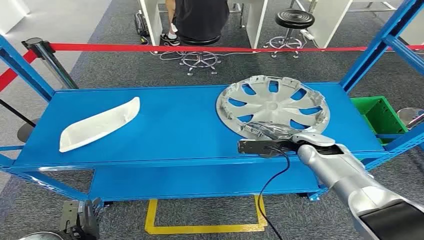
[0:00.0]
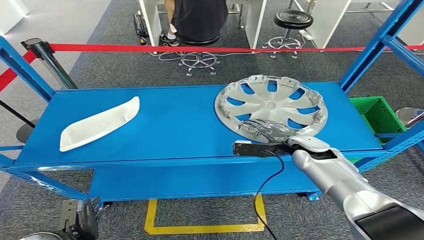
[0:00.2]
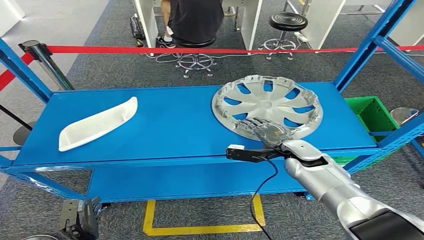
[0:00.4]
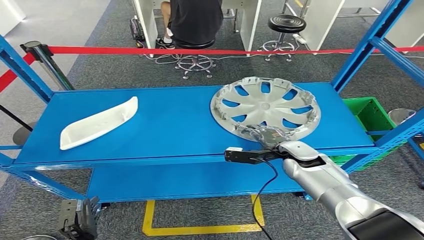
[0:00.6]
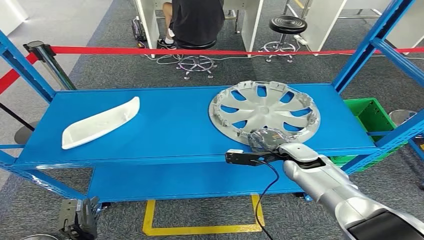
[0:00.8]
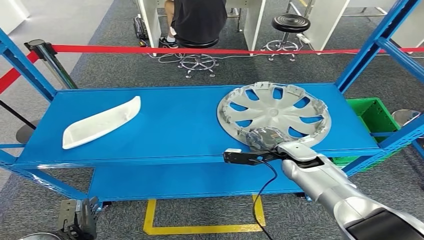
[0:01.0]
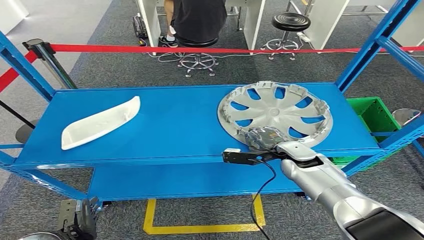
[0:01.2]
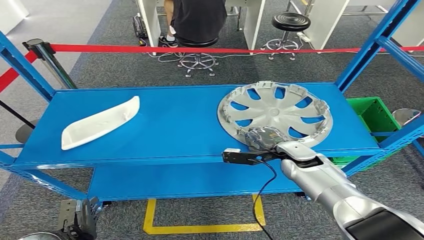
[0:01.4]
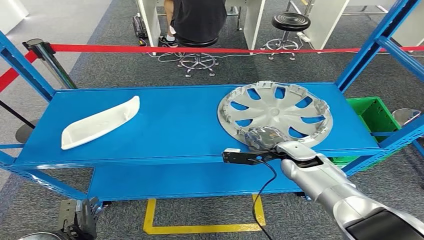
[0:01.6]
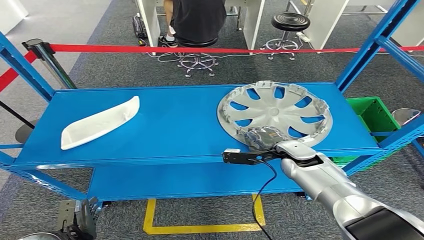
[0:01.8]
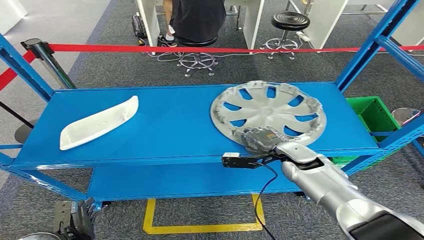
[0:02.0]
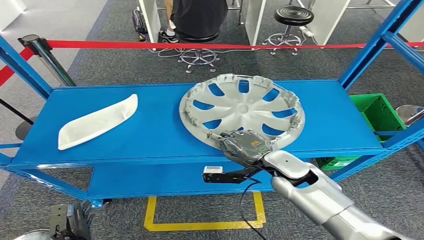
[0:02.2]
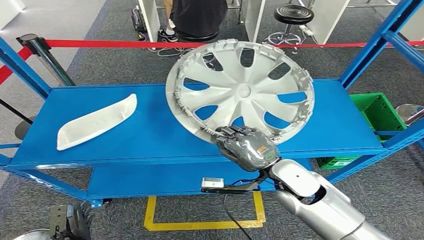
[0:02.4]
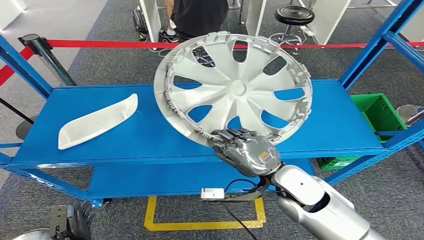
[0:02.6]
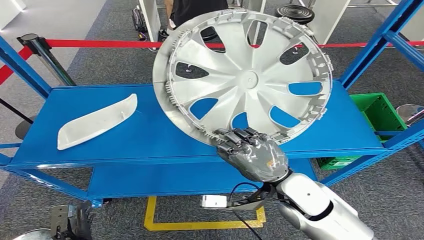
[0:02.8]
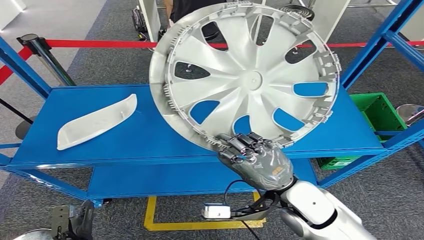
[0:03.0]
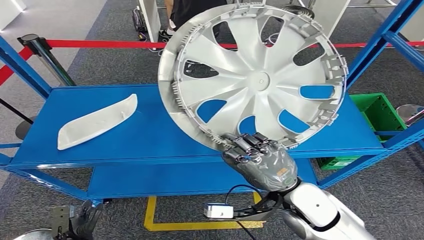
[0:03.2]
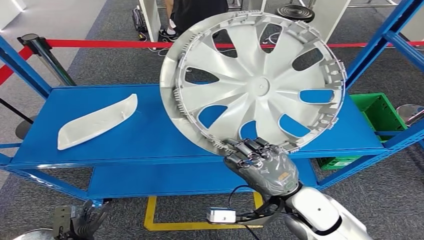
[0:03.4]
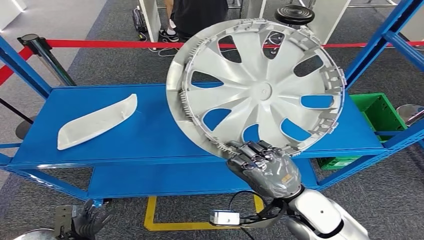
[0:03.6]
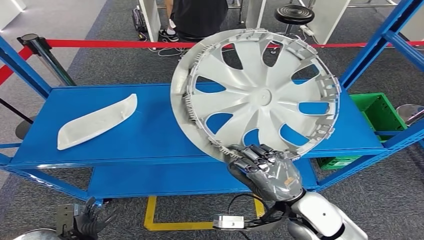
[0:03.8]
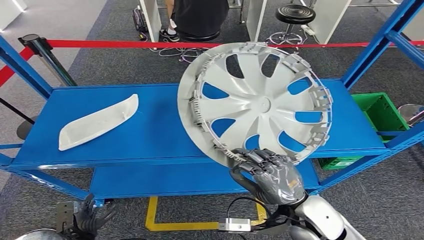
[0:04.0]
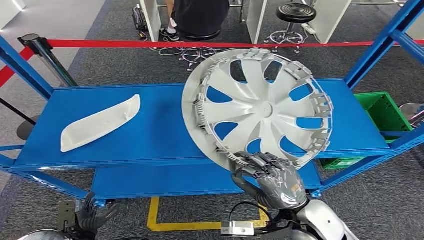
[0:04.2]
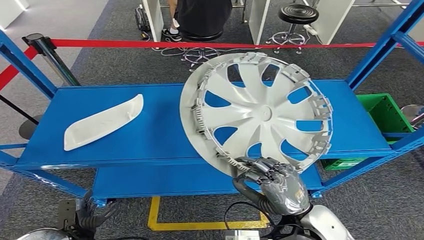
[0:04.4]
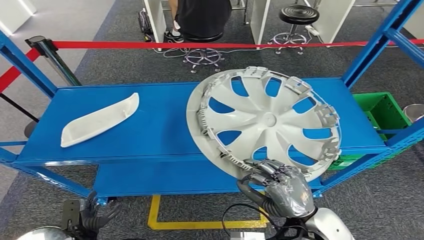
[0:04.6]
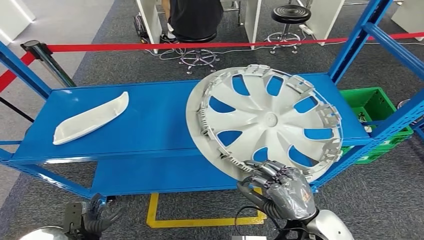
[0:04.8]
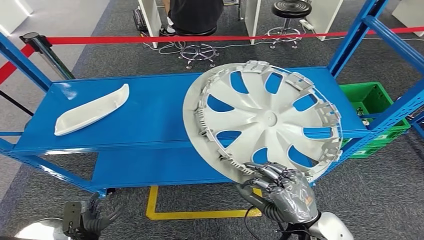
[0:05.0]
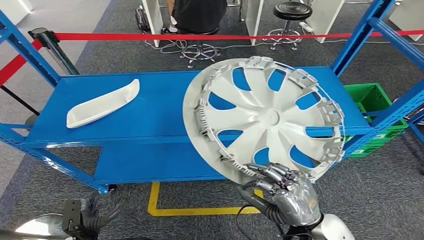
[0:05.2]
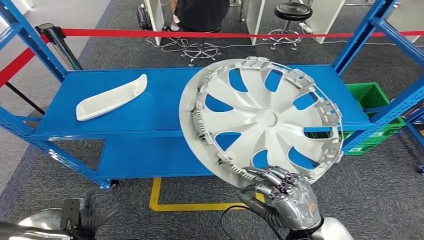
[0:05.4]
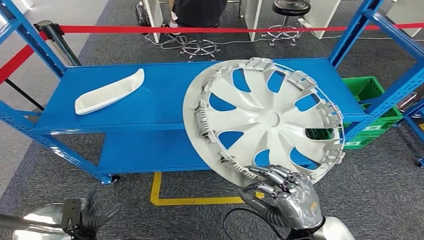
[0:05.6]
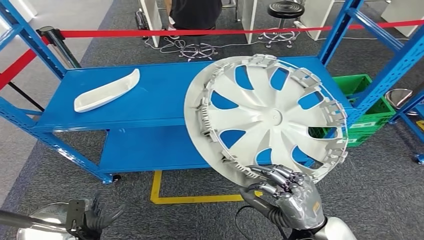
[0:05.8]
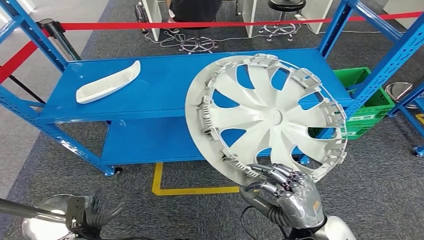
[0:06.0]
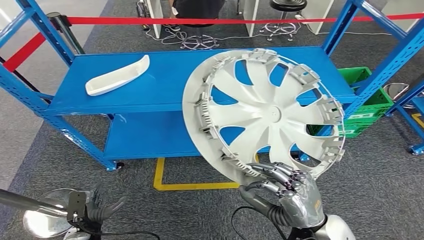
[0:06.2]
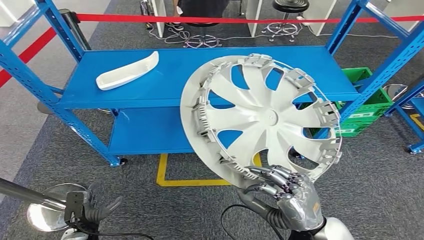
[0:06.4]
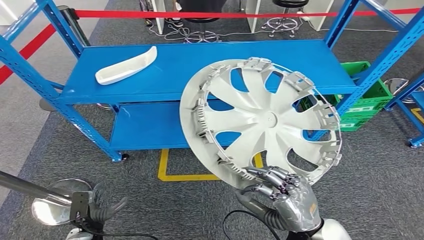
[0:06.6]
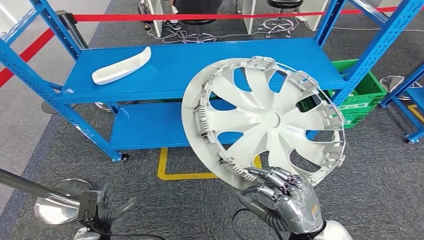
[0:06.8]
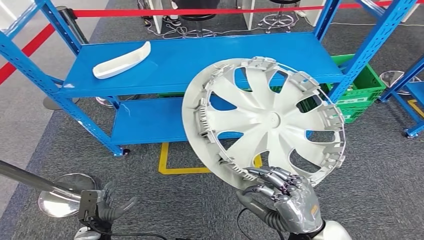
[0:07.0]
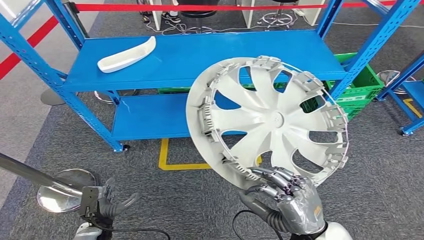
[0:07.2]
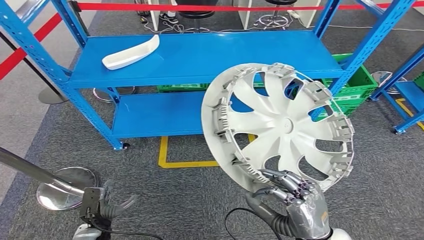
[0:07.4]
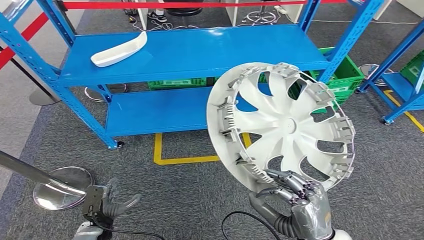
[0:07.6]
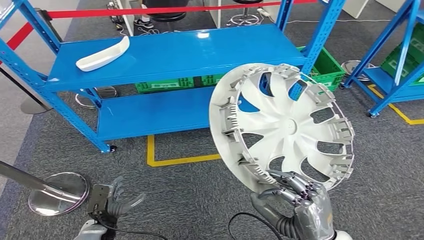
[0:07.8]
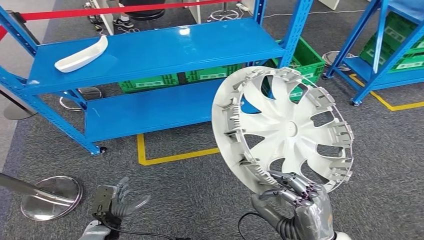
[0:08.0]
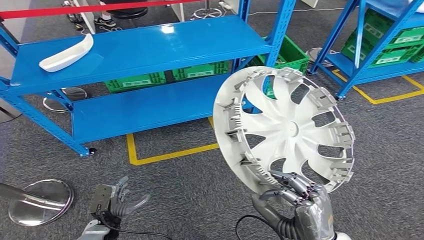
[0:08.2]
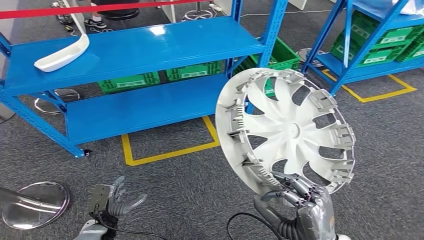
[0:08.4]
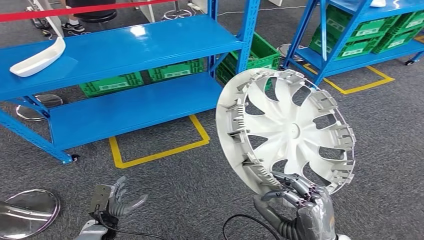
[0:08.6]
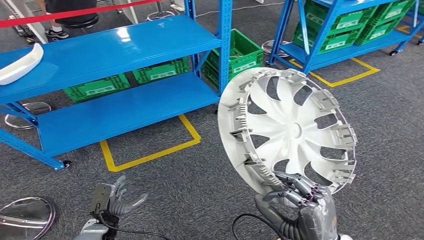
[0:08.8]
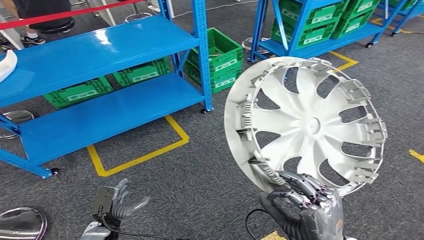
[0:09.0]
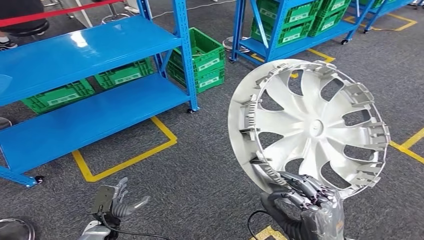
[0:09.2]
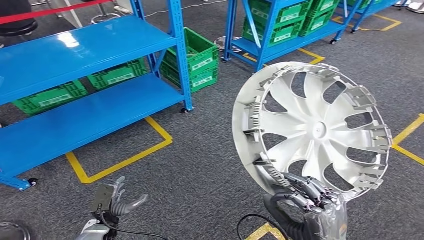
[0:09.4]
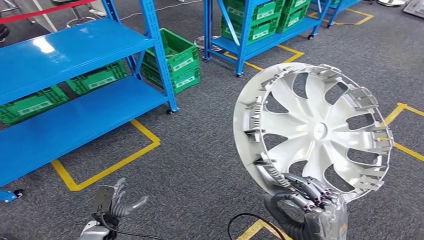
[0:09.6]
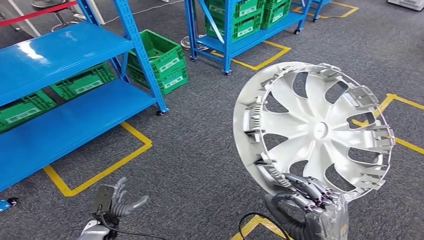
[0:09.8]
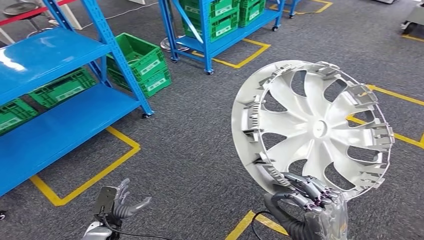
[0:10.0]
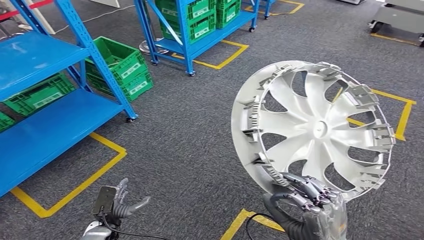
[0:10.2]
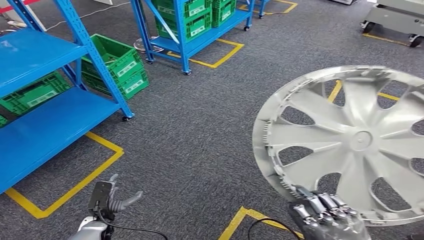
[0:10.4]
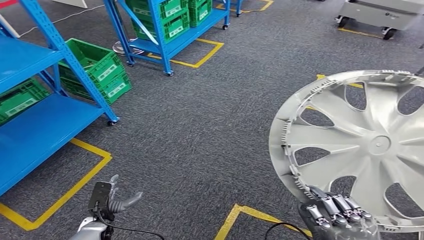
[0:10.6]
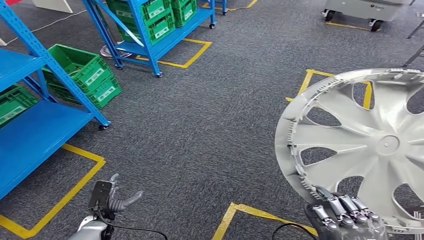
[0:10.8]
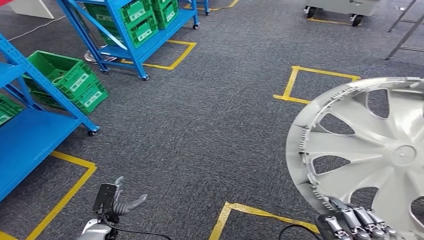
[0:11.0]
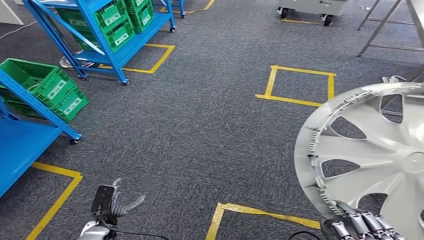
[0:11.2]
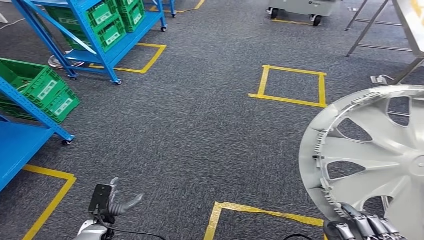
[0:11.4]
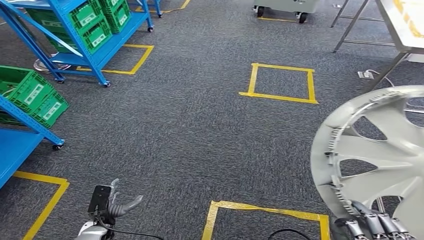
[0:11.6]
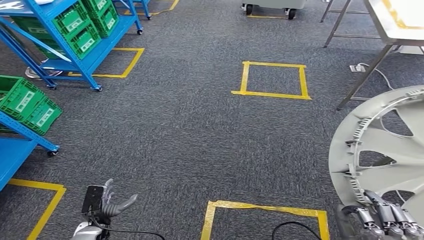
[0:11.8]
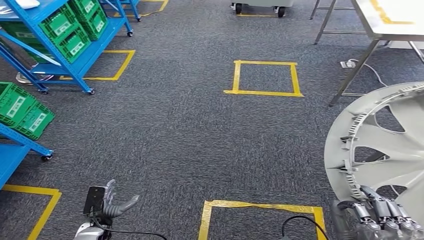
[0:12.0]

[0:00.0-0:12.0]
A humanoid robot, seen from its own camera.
Step, 0:00.0 to 0:02.8: Pick up the small component from the shelf.

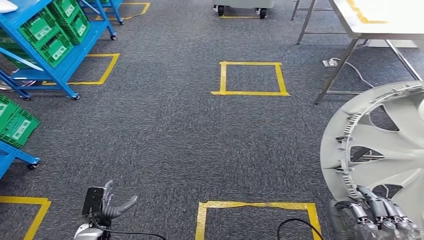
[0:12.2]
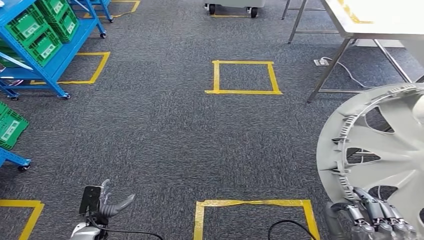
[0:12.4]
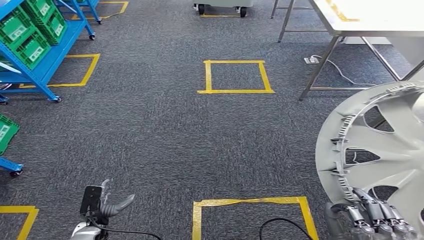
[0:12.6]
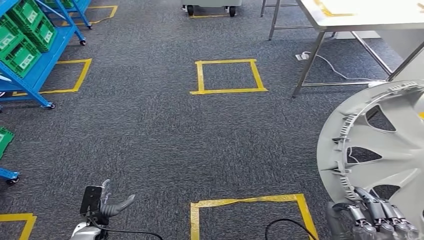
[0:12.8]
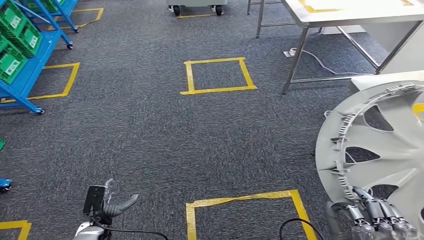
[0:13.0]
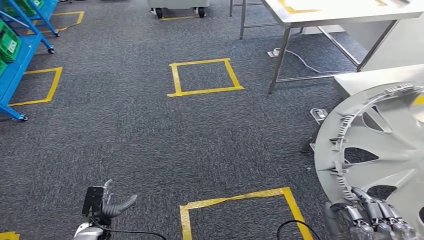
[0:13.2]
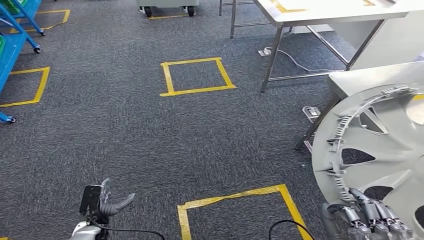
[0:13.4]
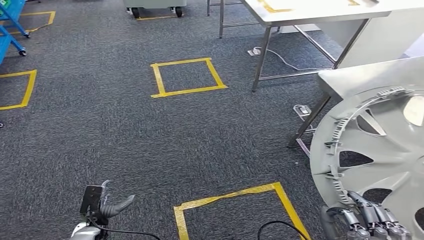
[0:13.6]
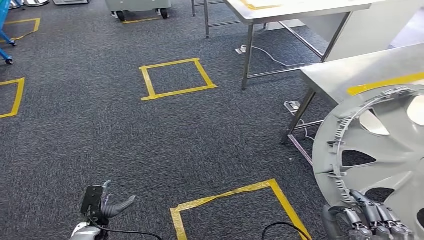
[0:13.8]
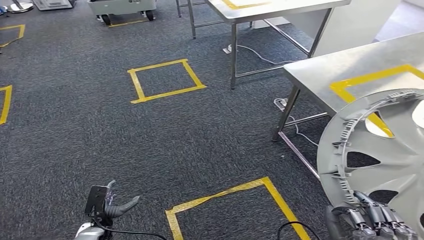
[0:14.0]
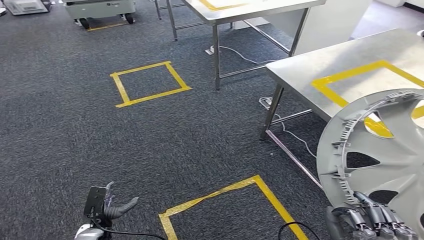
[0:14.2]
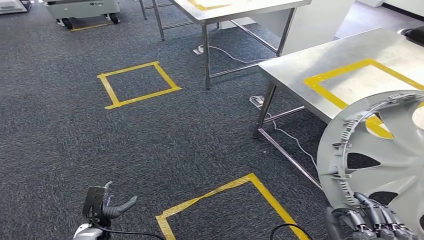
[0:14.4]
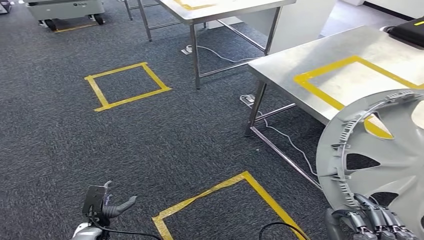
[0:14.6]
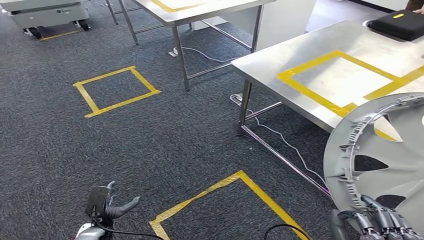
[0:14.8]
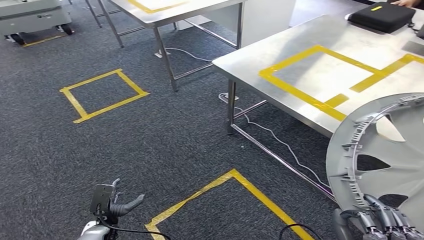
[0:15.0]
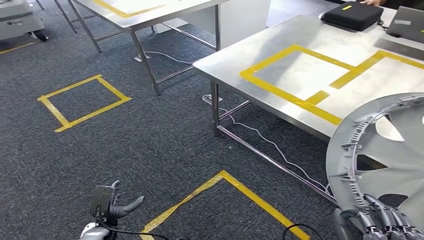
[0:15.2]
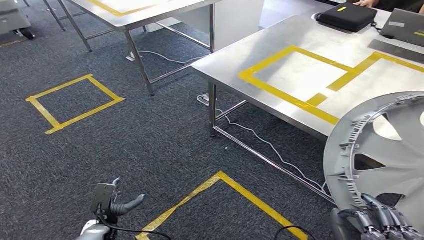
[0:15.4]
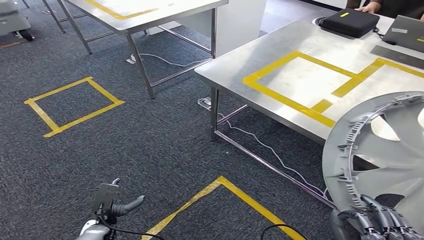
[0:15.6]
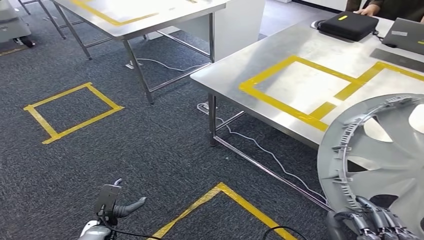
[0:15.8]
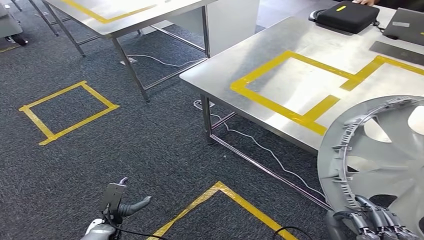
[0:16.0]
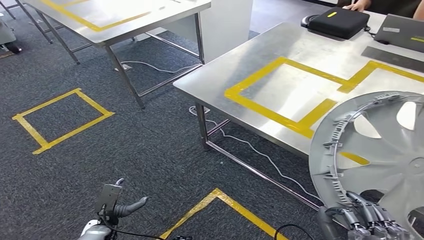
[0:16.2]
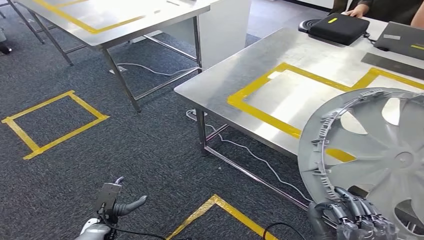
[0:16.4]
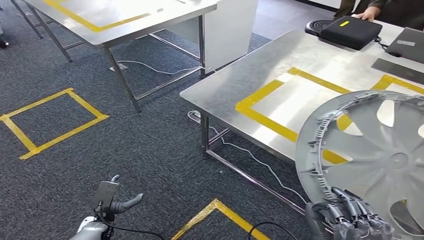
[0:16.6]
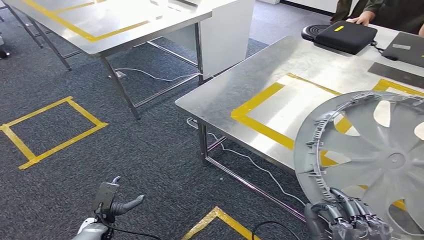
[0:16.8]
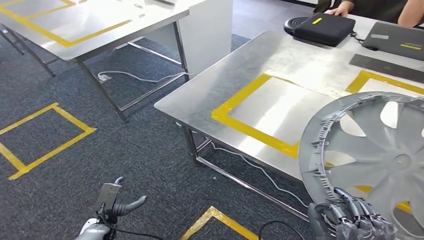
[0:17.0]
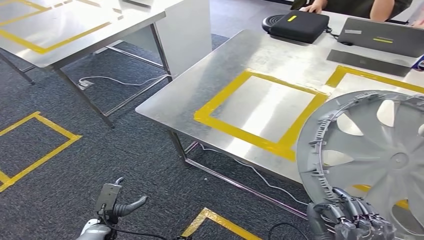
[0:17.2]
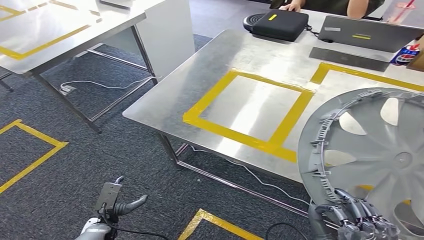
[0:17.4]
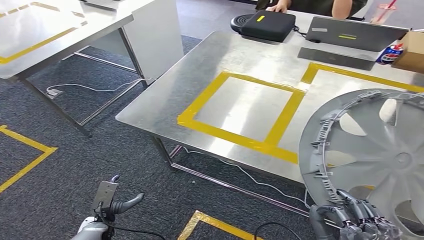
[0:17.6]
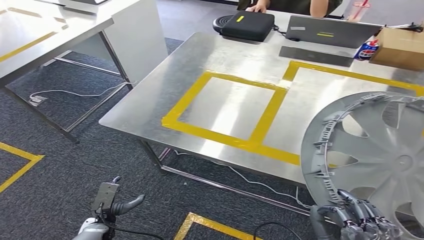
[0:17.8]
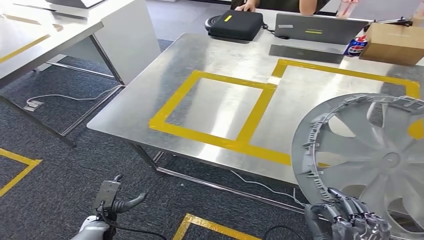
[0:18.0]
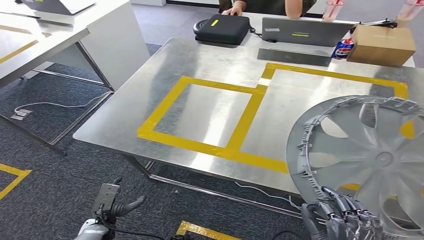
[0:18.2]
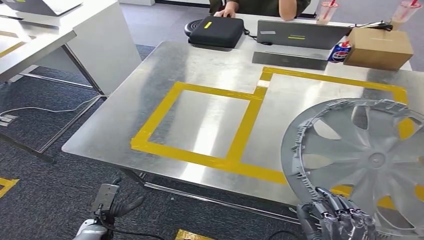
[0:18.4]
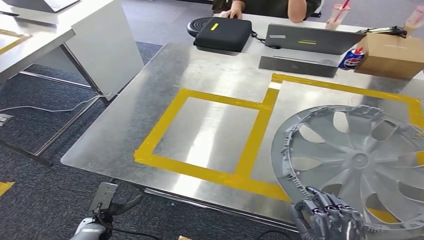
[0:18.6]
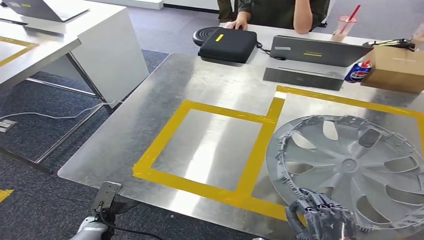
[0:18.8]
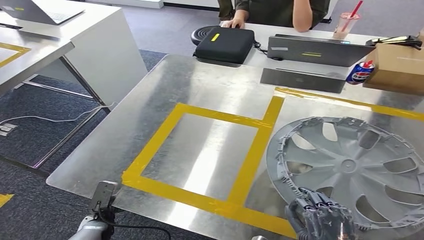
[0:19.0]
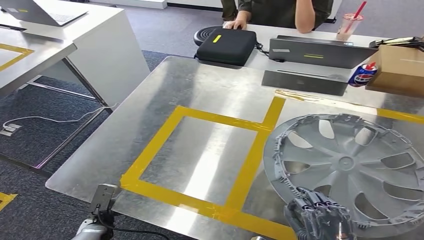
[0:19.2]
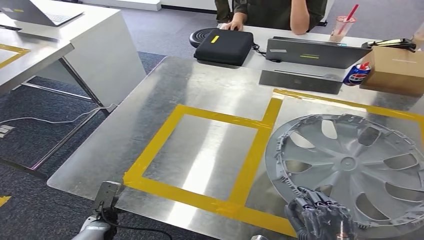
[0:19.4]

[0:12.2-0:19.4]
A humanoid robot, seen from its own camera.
Step, 0:12.2 to 0:17.4: Move the small component to the workbench.
